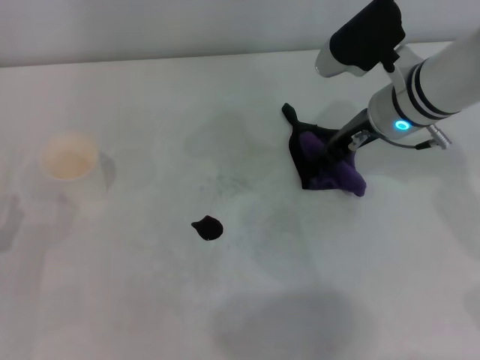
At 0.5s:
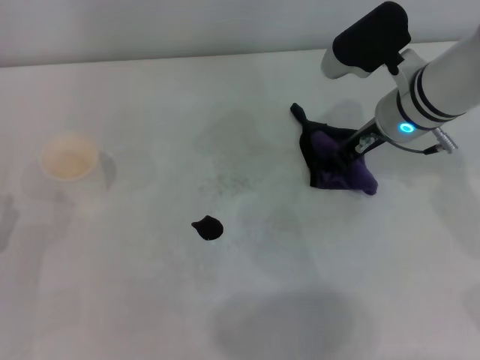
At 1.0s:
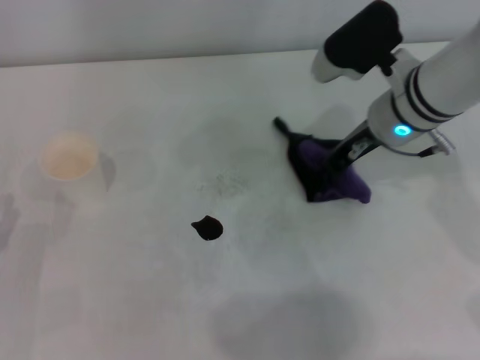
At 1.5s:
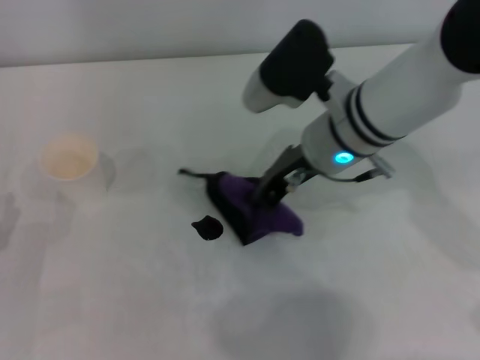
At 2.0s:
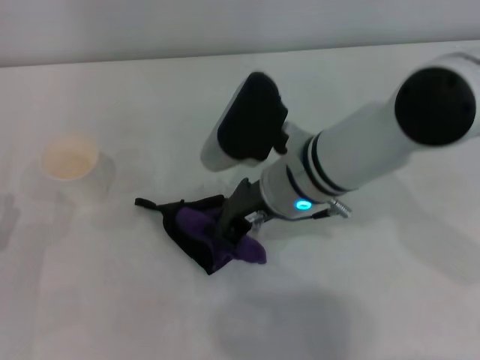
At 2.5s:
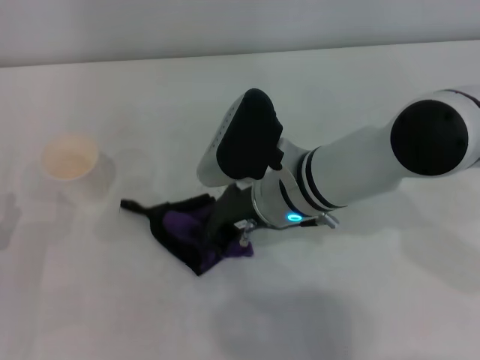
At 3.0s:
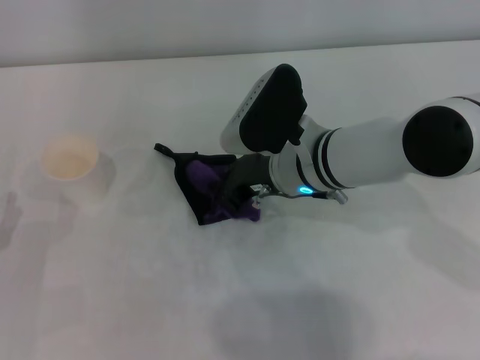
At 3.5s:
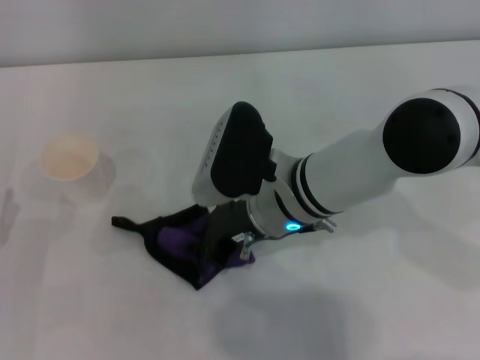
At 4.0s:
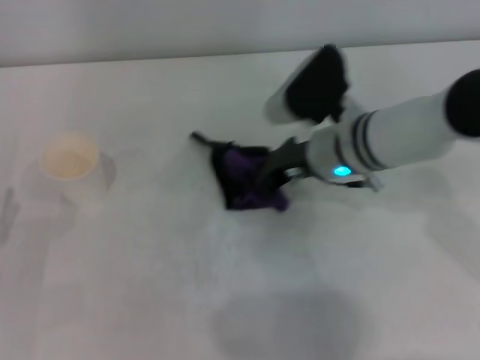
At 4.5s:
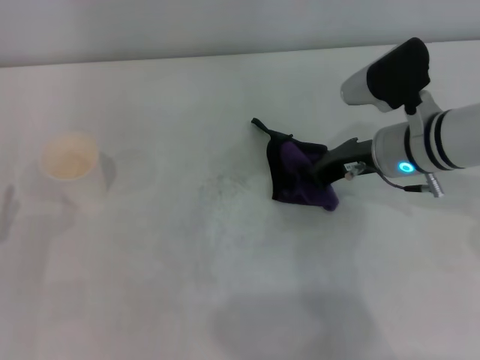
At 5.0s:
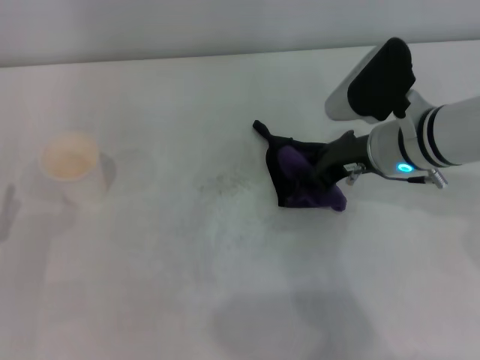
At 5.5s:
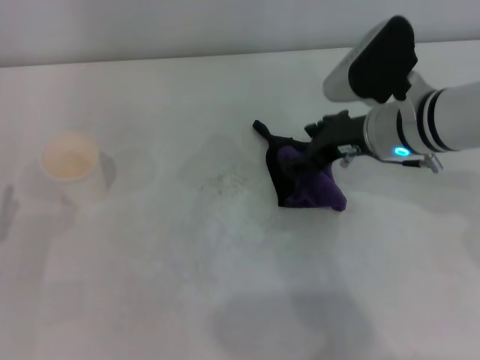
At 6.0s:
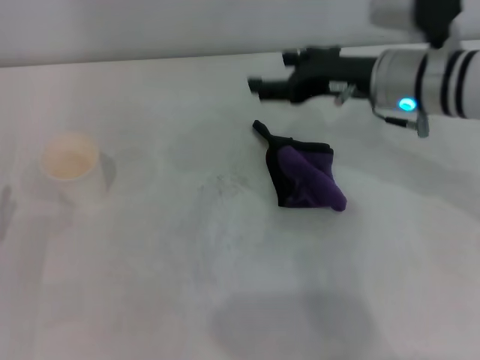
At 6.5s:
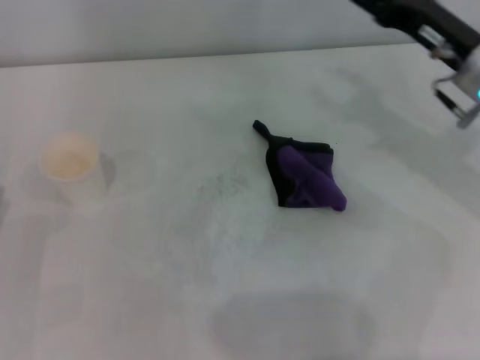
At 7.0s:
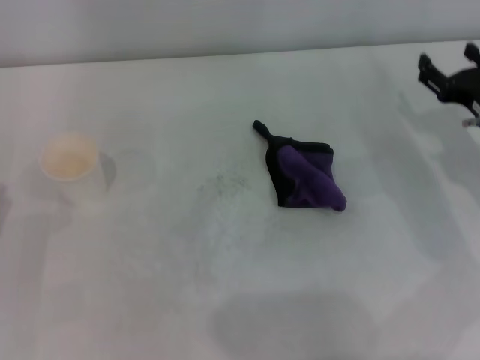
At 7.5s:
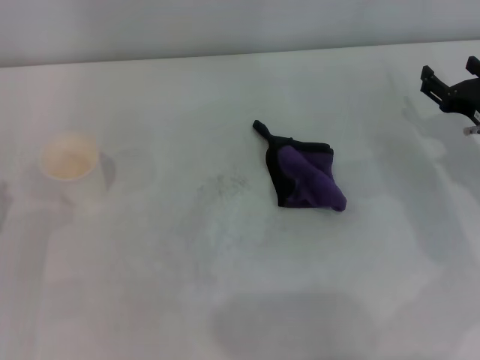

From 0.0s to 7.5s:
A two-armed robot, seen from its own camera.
Step, from 1.0s to 4.0s: Wipe the stains off the table with the right gripper.
From 0.0s to 2.0s: The right gripper goes approximately 15 cm to the left and backward, and closes its fingers.
From 2.0s to 4.0s: The right gripper is displaced to the right by about 5 cm.
From 4.0s to 5.5s: The right gripper travels to the right by roughly 5 cm, and opens its fingers.
From 5.5s to 7.5s: The right gripper shifts about 15 cm to the right and downward.

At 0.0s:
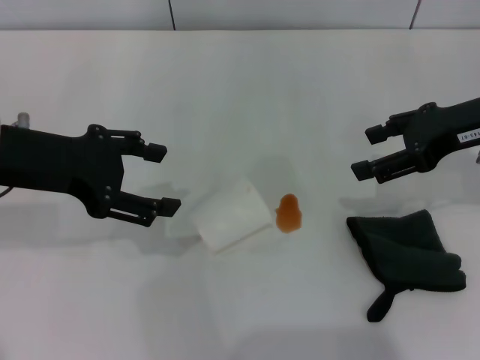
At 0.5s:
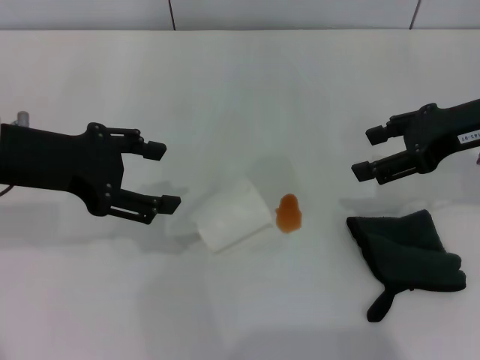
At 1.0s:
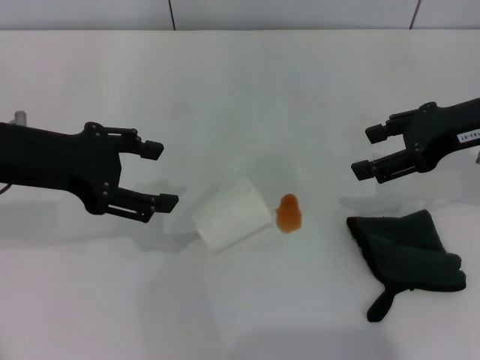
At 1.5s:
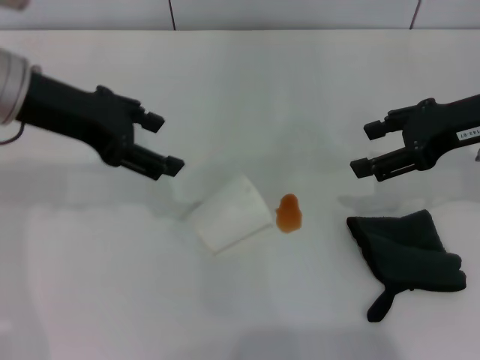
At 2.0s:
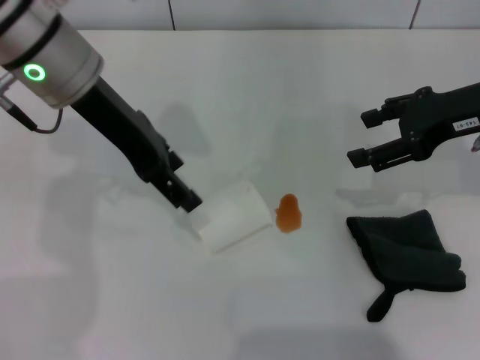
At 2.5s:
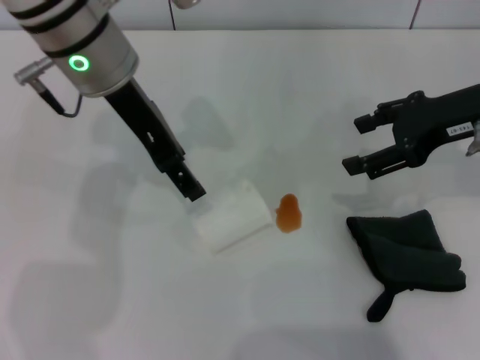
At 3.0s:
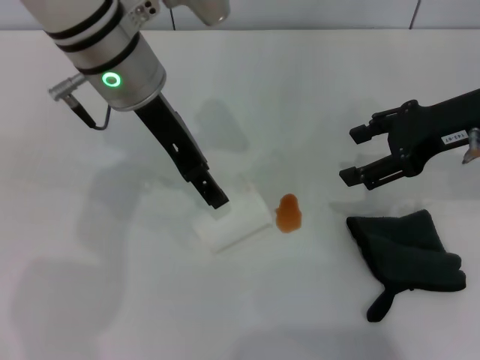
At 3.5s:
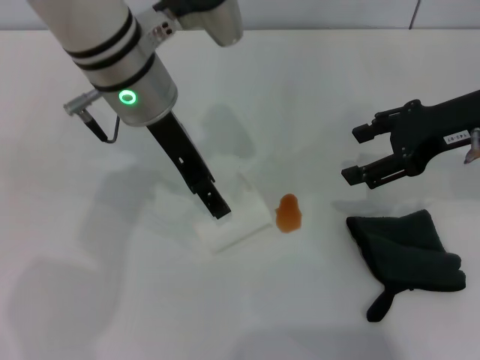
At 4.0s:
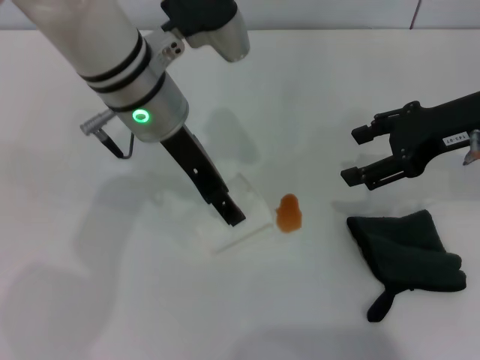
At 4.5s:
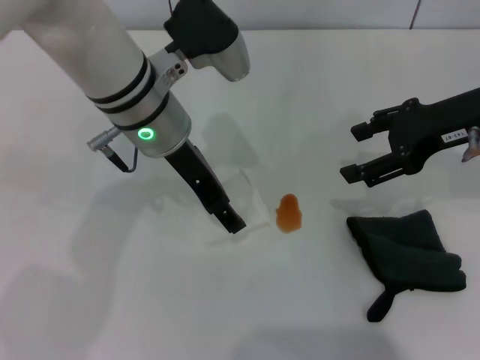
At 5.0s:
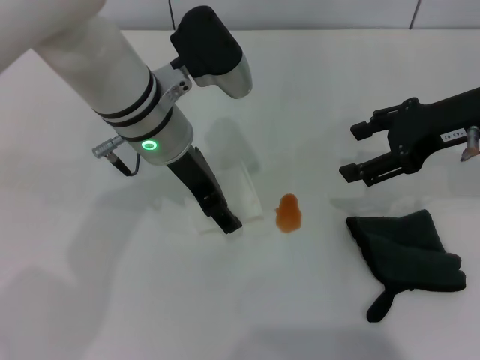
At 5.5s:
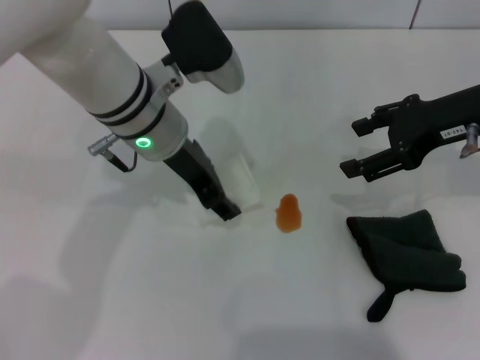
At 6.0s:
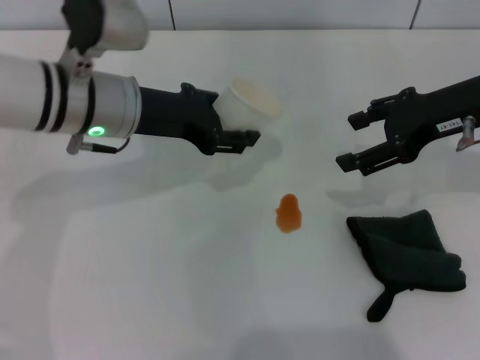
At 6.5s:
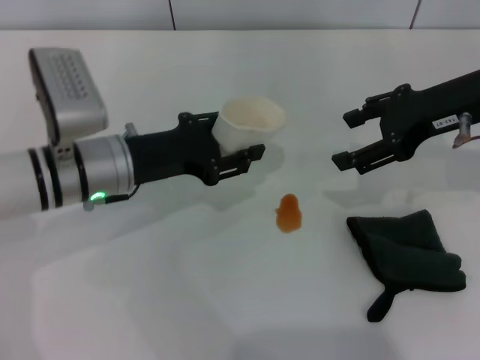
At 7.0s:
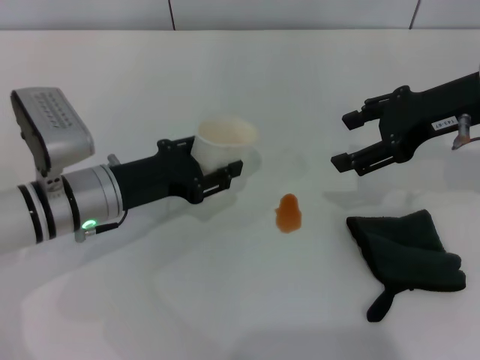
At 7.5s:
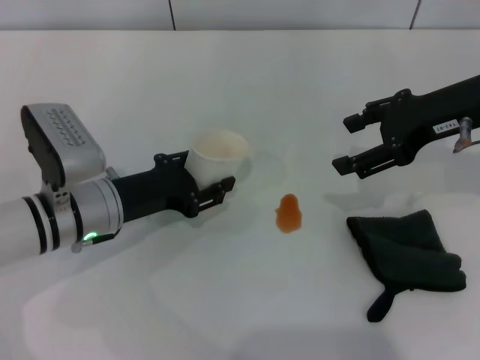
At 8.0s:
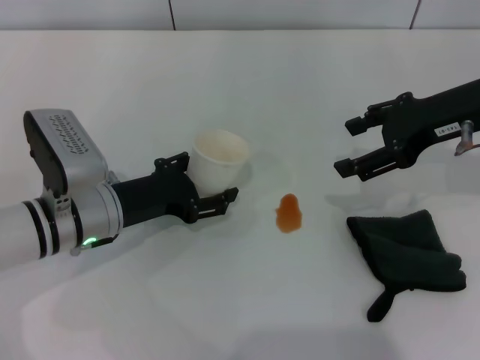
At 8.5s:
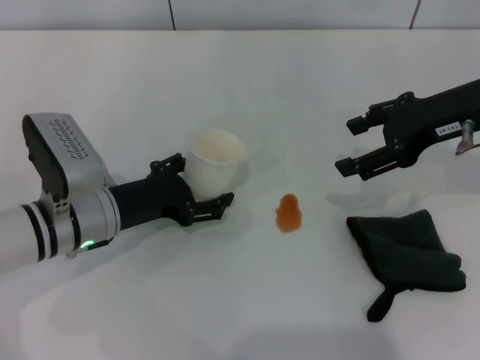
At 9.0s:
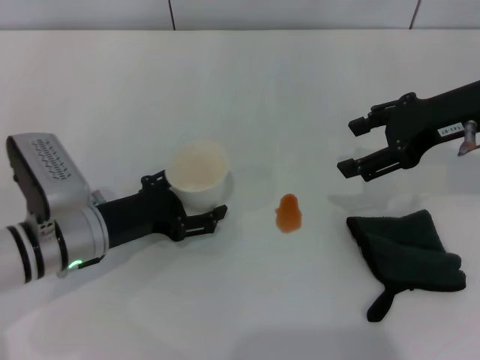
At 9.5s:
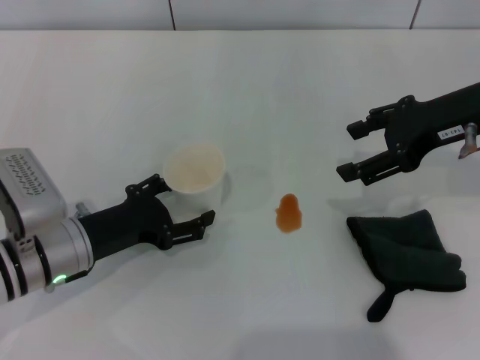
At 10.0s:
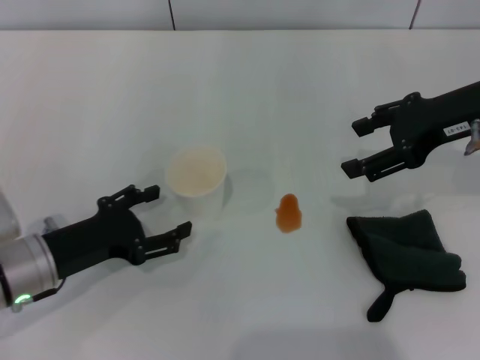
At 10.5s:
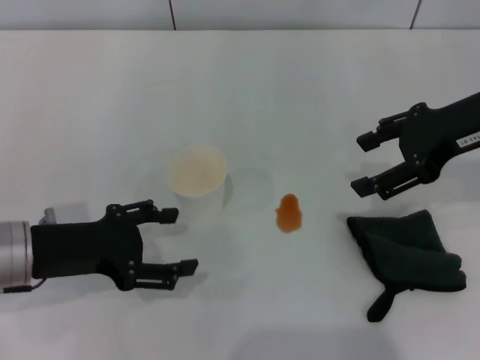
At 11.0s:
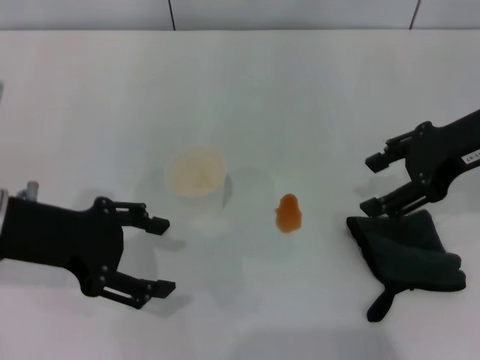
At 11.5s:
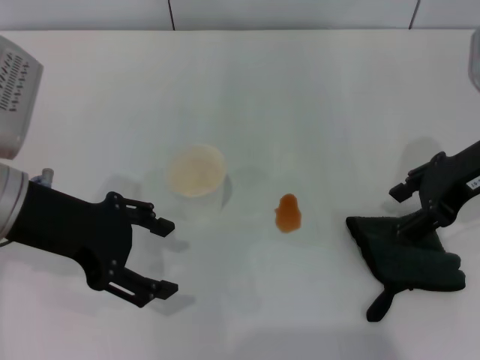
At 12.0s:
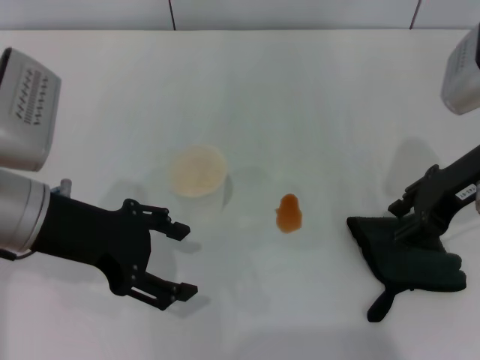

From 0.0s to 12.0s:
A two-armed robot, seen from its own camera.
Step, from 0.0s to 5.0s: Grasp the paper cup with the left gripper.
Step, from 5.5s to 9.5s: Stand the paper cup upright with the left gripper.
From 0.0s to 2.0s: The left gripper shifts about 10 cm to the right and forward.
From 2.0s to 4.0s: The left gripper travels to the right and downward by about 10 cm.
From 4.0s to 6.0s: The left gripper shifts about 5 cm to the left, and closes.
From 6.0s to 8.0s: The left gripper moves downward and backward, approximately 15 cm.
From 8.0s to 10.0s: The left gripper heads to the left and backward, covering approximately 10 cm, and opens up.
From 10.0s to 12.0s: The left gripper moves upward, approximately 15 cm.

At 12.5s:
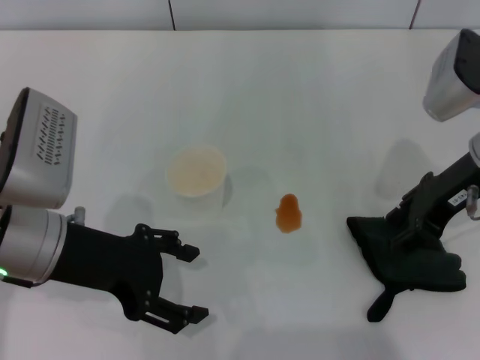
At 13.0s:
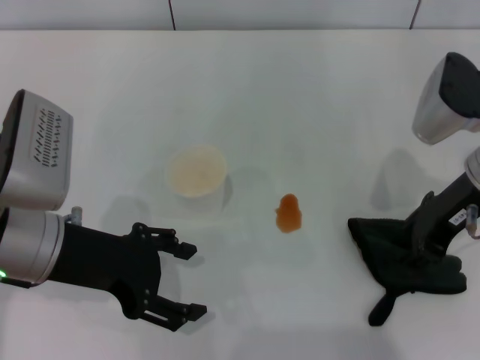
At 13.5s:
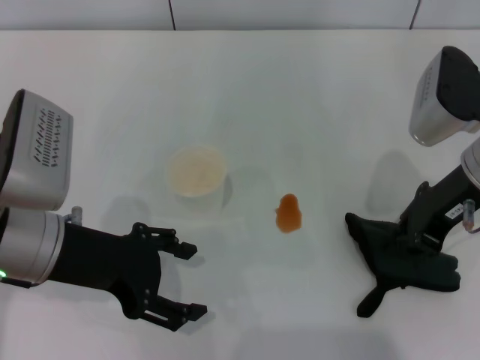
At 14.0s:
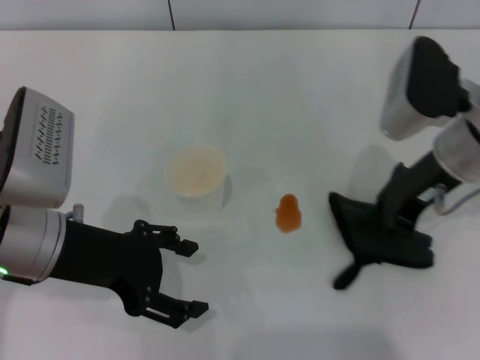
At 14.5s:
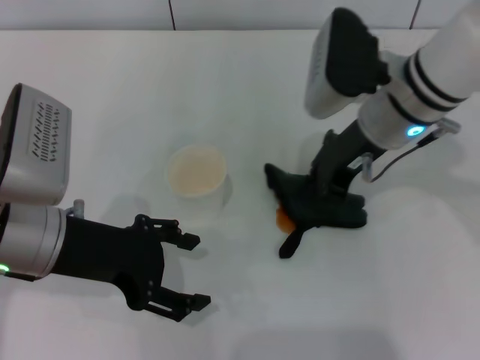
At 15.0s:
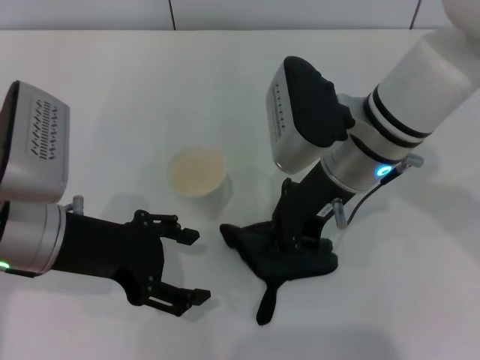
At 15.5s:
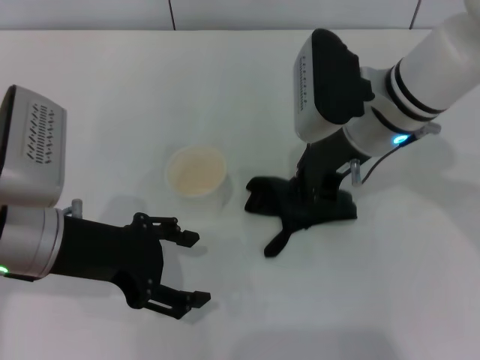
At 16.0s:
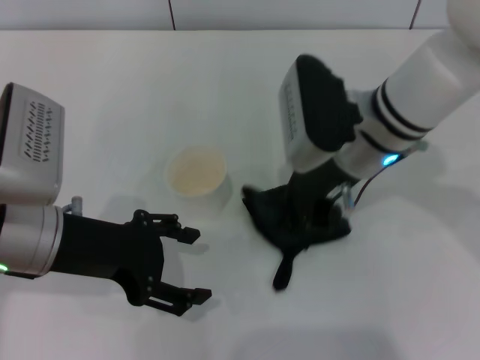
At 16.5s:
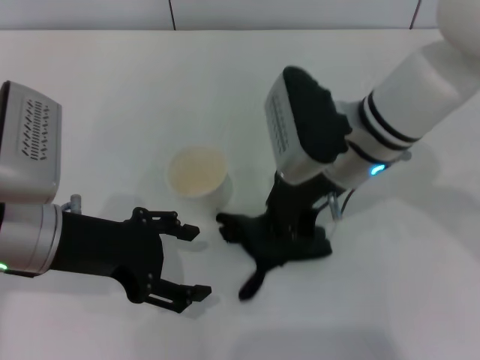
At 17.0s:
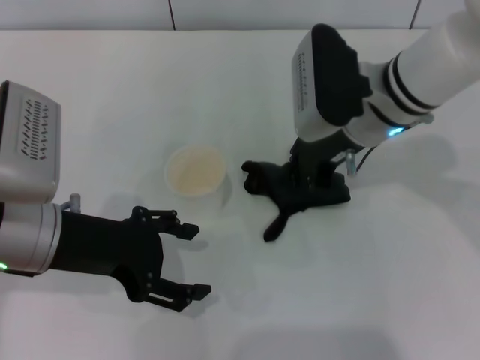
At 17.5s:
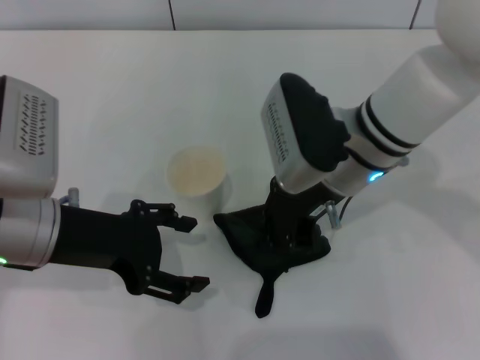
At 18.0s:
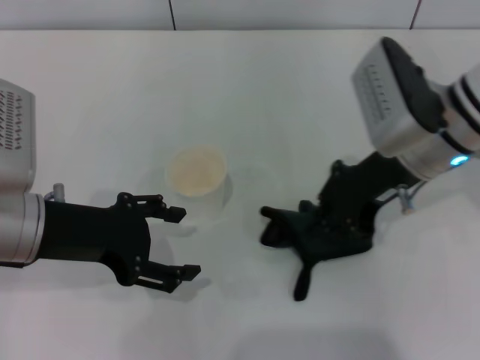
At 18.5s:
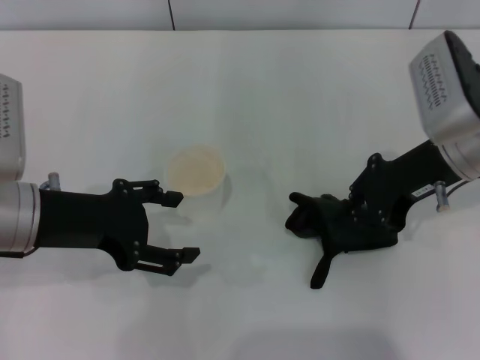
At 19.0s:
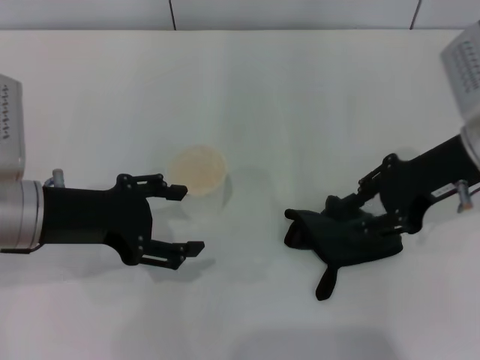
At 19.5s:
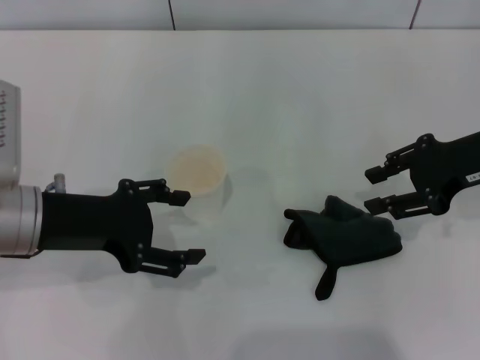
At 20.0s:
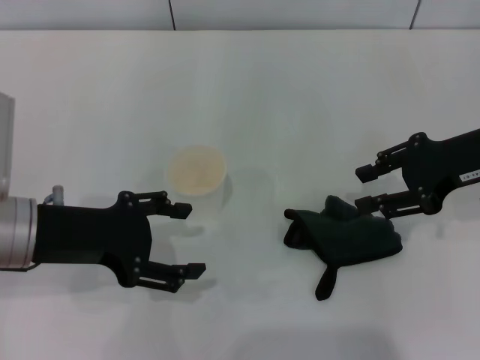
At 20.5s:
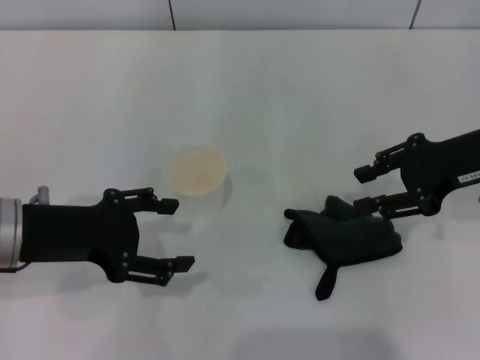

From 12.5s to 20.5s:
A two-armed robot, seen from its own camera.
Step, from 13.5s to 18.0s: Wipe the stains off the table with the right gripper.
Step, from 18.5s to 19.0s: Place the rag on the table with the right gripper.
From 12.5s to 14.5s: The right gripper heads to the left, covering about 10 cm, and closes its fingers.
From 16.5s to 18.5s: The right gripper moves to the right, about 10 cm.
From 18.5s to 20.5s: The right gripper travels to the right by roughly 5 cm, and opens up.
